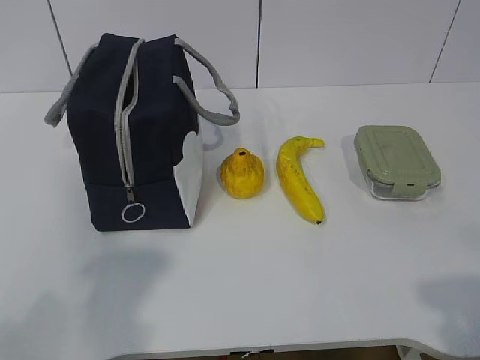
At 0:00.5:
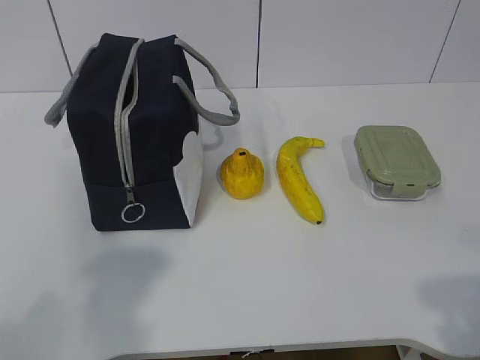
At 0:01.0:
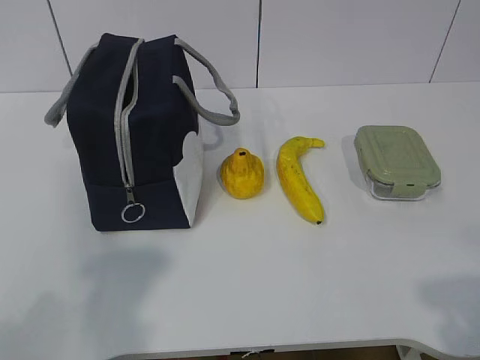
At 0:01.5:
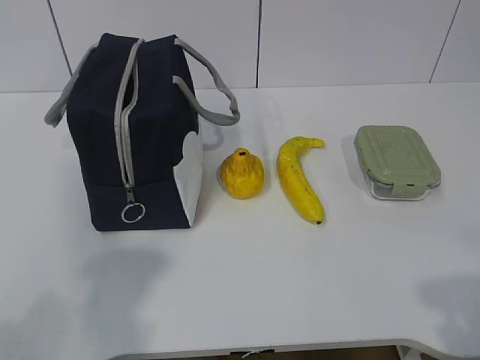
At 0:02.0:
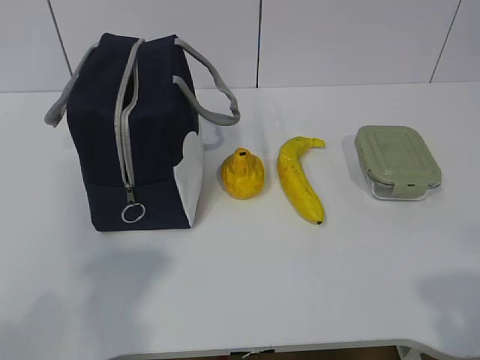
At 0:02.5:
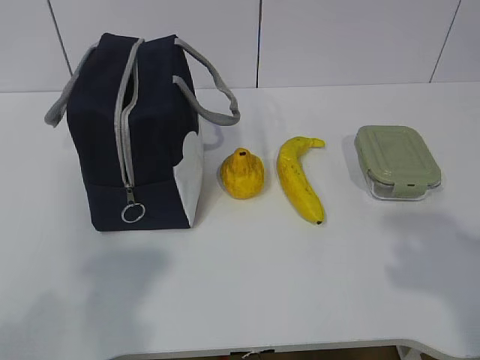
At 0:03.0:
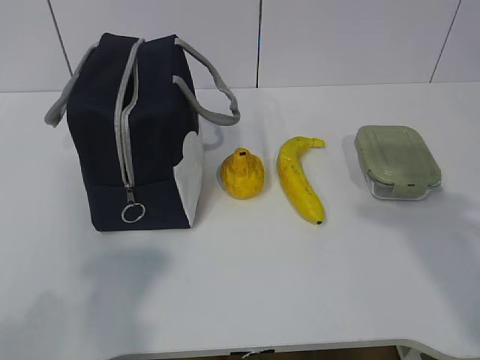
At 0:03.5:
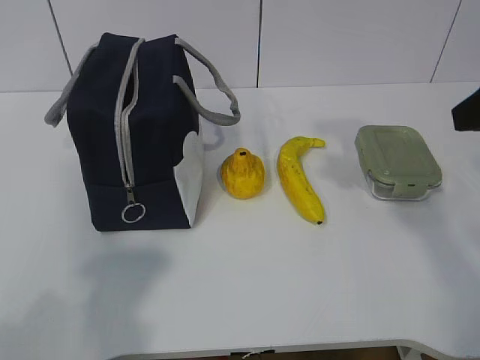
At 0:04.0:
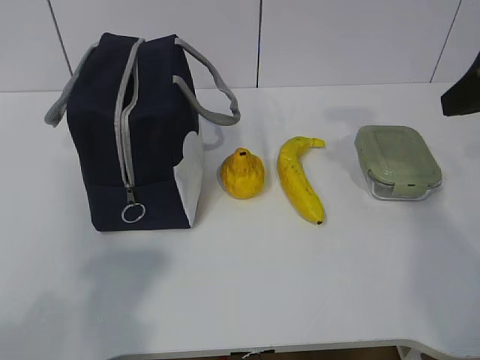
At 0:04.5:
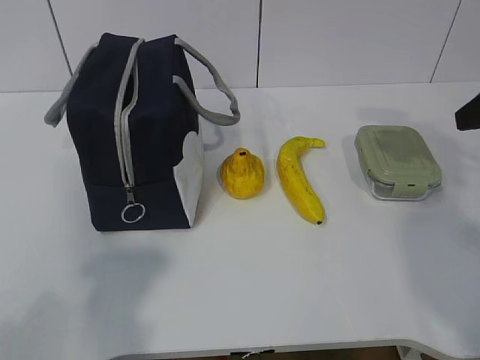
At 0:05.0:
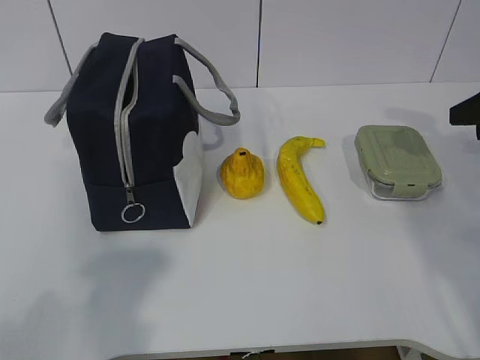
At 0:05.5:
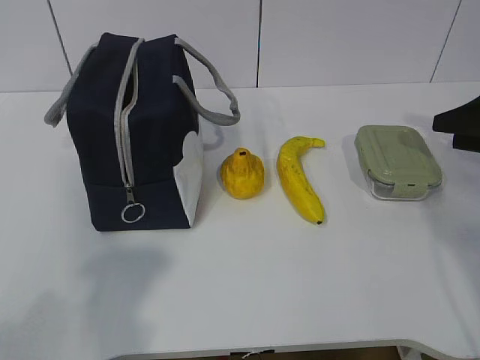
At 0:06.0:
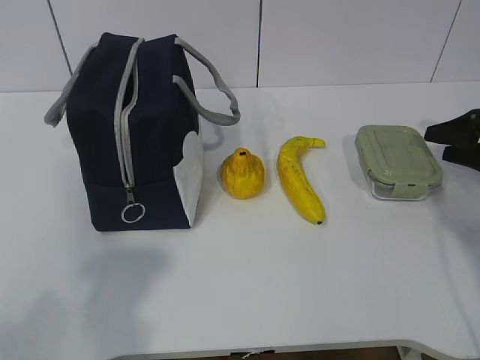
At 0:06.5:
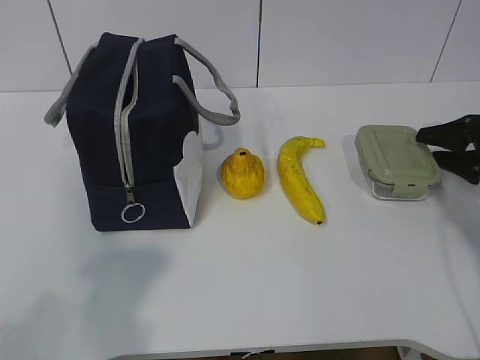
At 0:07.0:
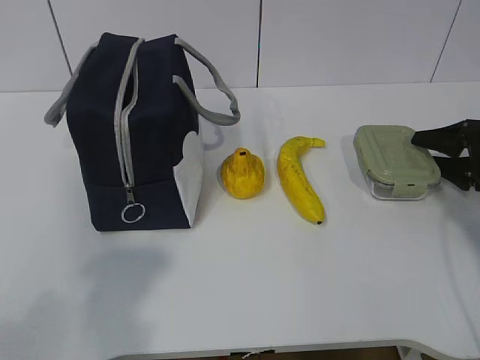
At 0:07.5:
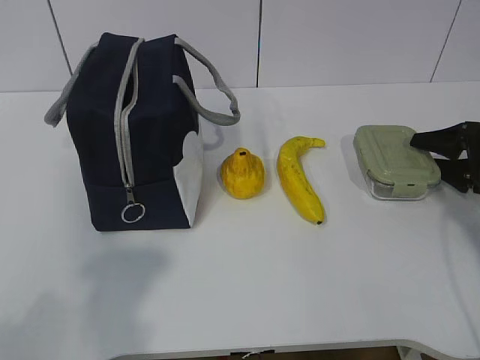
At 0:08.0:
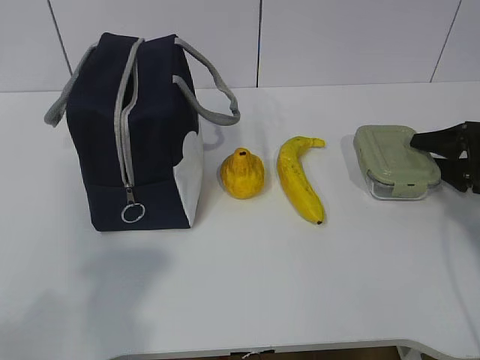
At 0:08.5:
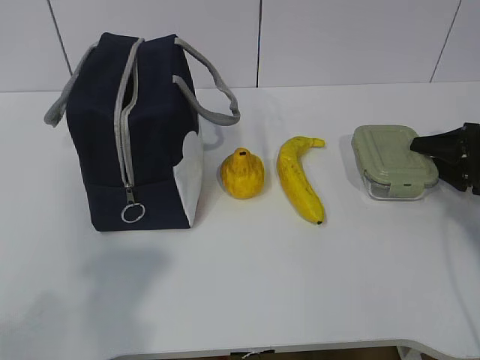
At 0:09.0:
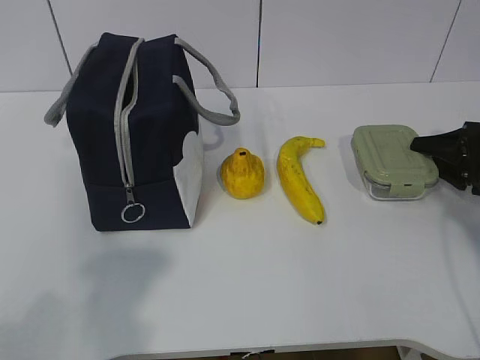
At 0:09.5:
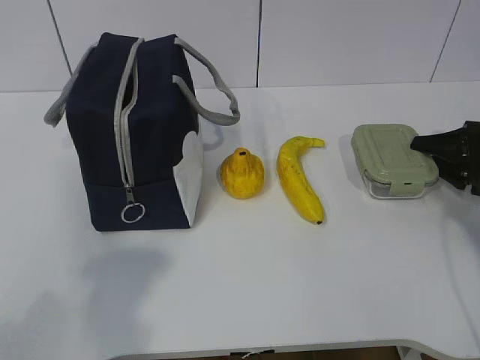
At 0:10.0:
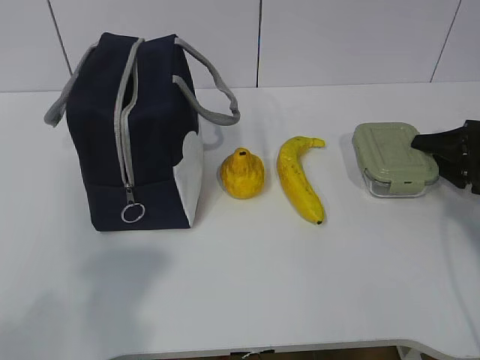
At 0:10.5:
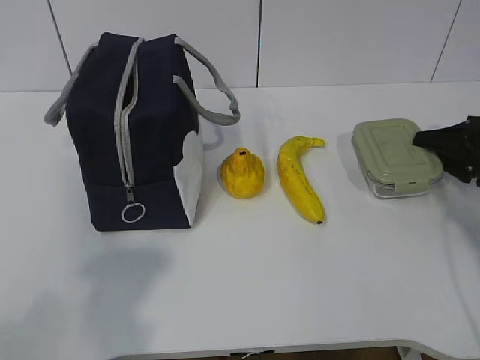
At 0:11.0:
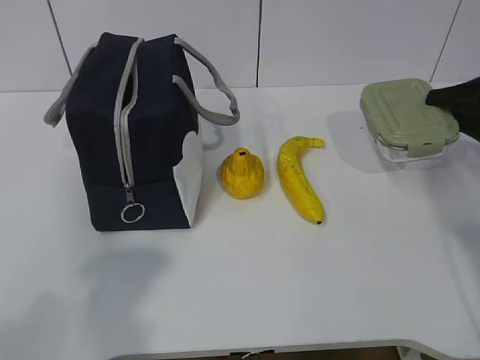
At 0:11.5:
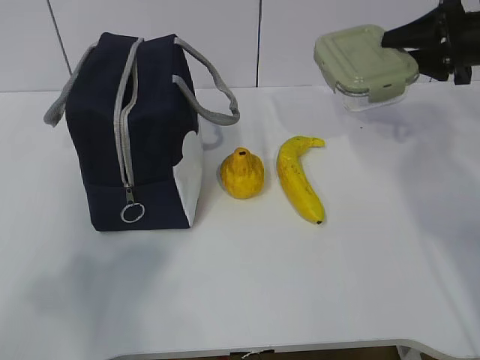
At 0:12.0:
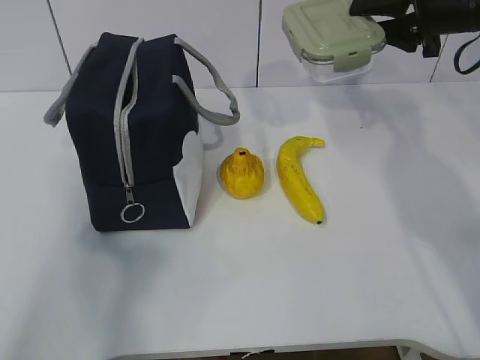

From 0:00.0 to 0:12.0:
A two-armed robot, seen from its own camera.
Step, from 0:00.0 to 0:07.0: Grab the lunch box with your right hand.
From 0:02.0 to 0:04.0: The right gripper travels forward by roughly 30 cm.
From 0:04.0 to 0:06.0: The right gripper travels downward, to the right and forward by roughly 25 cm.
From 0:06.0 to 0:08.0: The grippers stay close to where they were, moving slightly.
From 0:08.0 to 0:10.0: Both grippers stay about where they are.
From 0:10.0 to 0:12.0: The right gripper heads upward and to the left, covering approximately 20 cm. Meanwhile the left gripper goes about 10 cm forward and upward.

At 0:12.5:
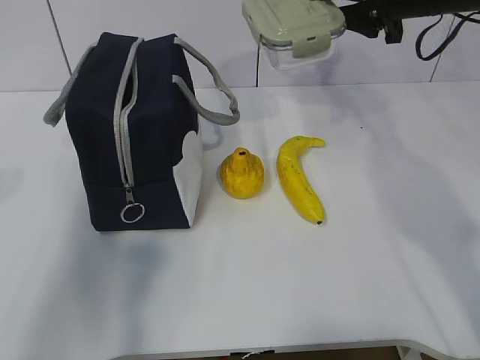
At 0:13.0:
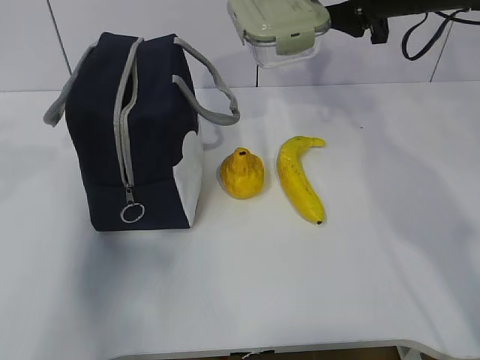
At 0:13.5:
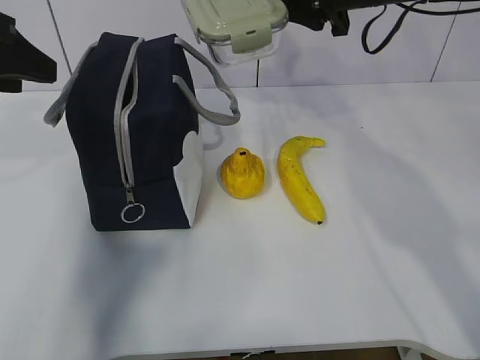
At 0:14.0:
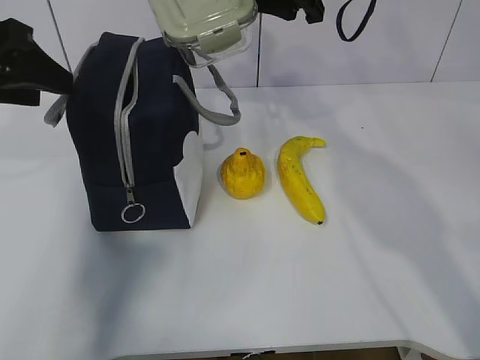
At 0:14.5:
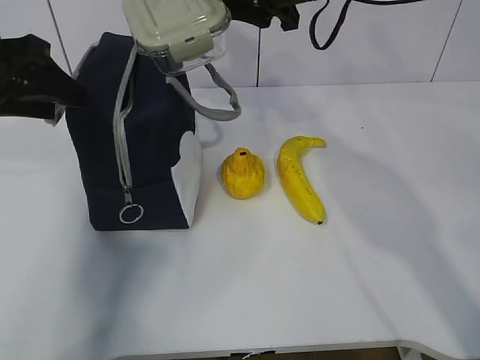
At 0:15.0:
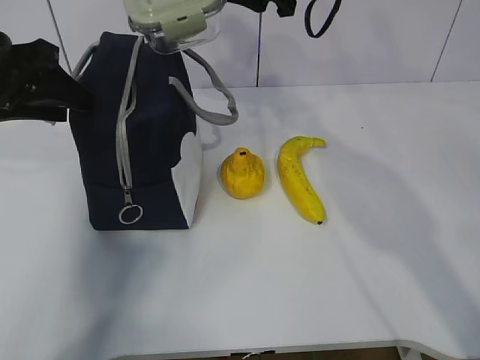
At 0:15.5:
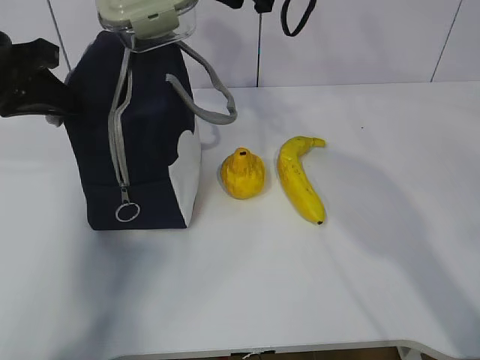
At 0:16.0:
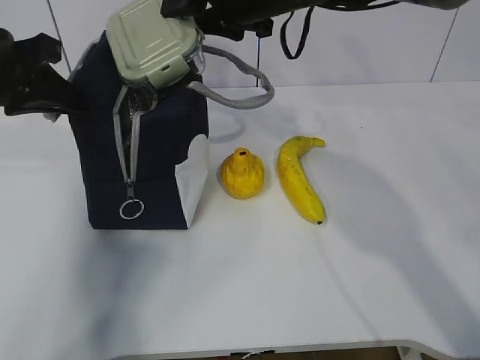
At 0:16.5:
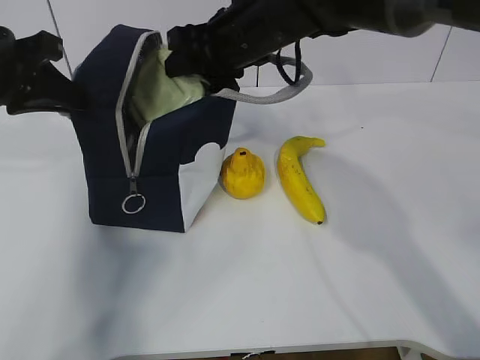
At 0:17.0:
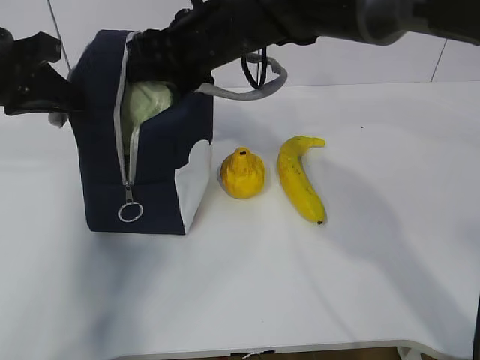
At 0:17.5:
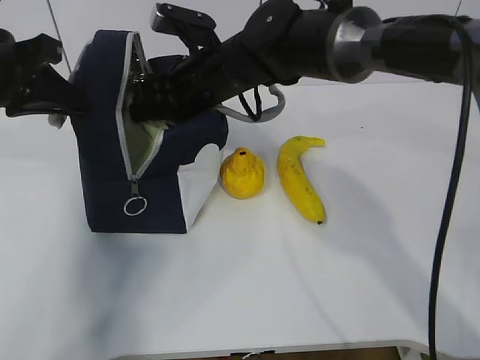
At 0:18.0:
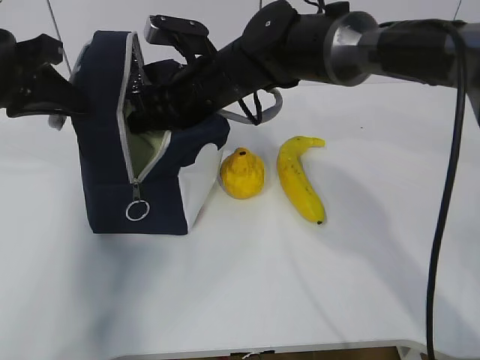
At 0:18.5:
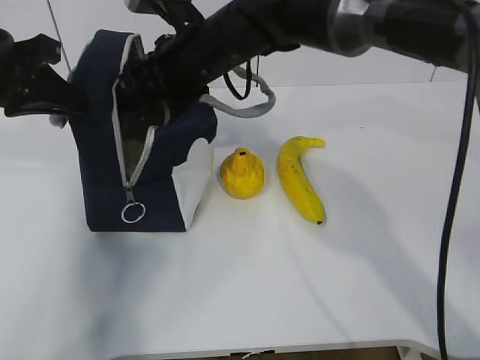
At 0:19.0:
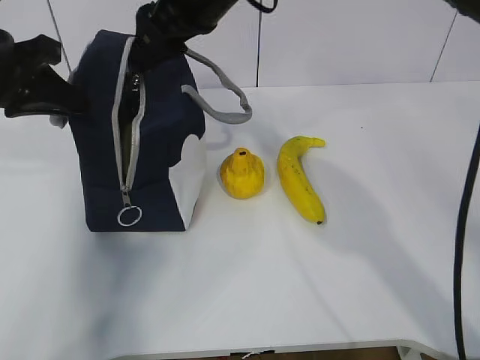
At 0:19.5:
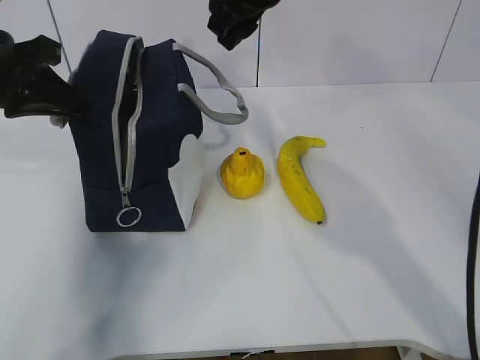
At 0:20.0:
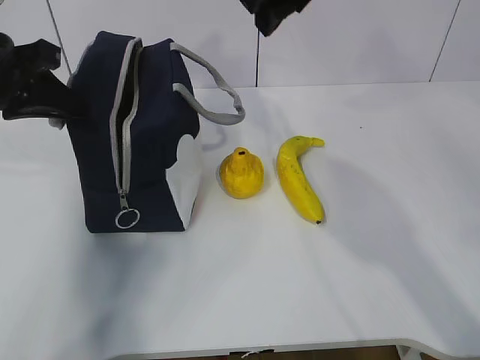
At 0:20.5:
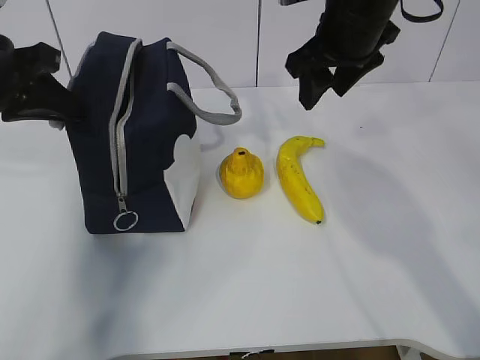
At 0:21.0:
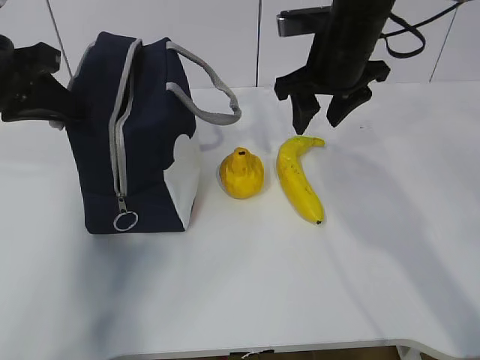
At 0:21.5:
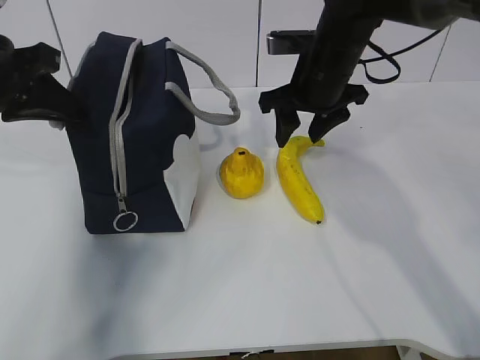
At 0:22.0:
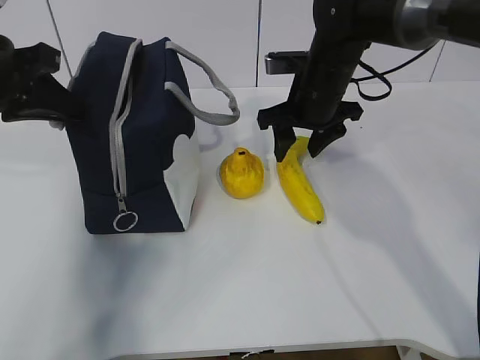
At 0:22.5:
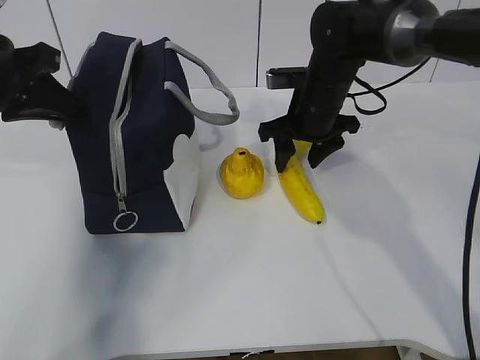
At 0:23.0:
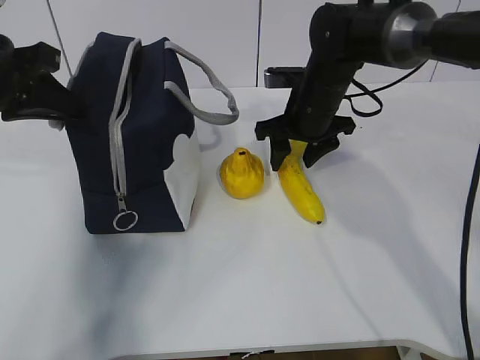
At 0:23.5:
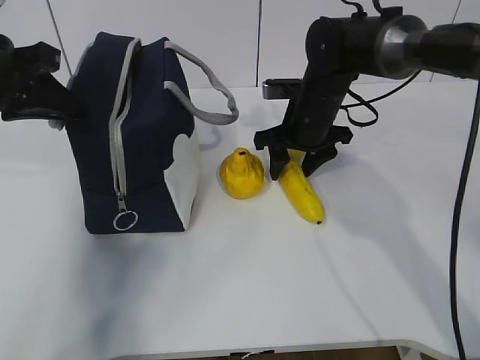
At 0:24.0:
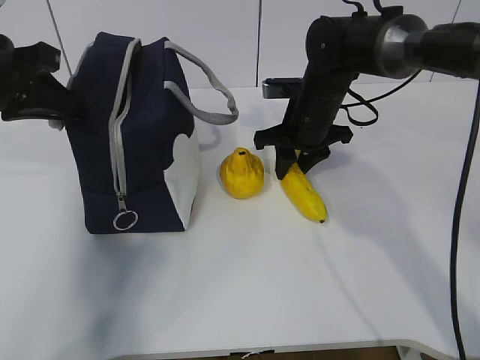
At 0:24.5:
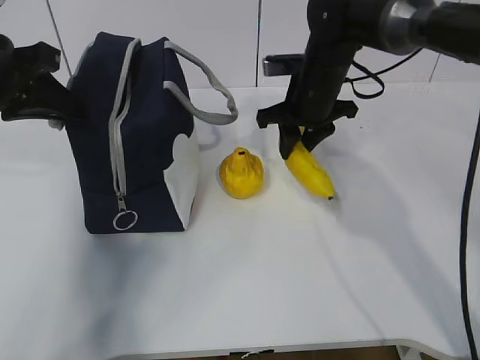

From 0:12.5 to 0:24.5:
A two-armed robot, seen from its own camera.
Step, from 0:13.5 to 0:15.0: Place it into the bag with your right hand.
Step, from 0:15.5 to 0:19.5: Grab the banana with your right hand.
Step, from 0:20.5 to 0:23.5: Place it into the bag with your right hand.
From 0:12.5 to 0:14.5: The right gripper moves to the left, some 15 cm; the left gripper shifts approximately 15 cm forward.
From 0:14.5 to 0:16.5: The left gripper closes; the right gripper heads downward and to the left, covering about 10 cm.
From 0:16.5 to 0:18.5: The right gripper is displaced to the left by roughly 5 cm.
From 0:18.5 to 0:20.5: The right gripper is displaced to the right by about 15 cm.
From 0:20.5 to 0:22.5: The right gripper is displaced downward by approximately 10 cm.
From 0:22.5 to 0:24.5: The right gripper closes up.

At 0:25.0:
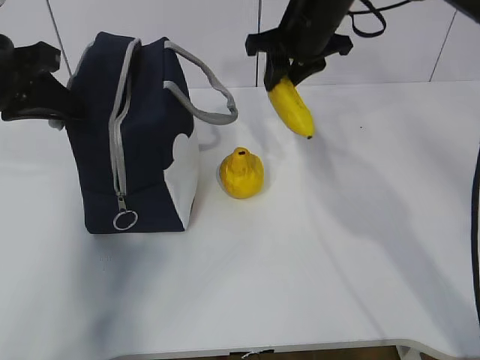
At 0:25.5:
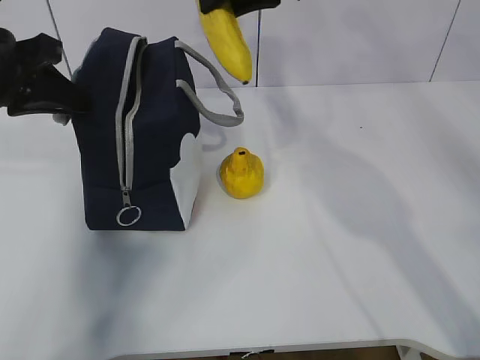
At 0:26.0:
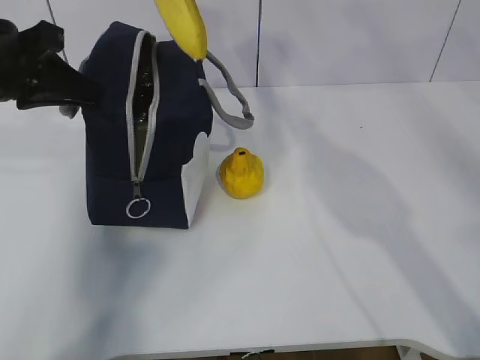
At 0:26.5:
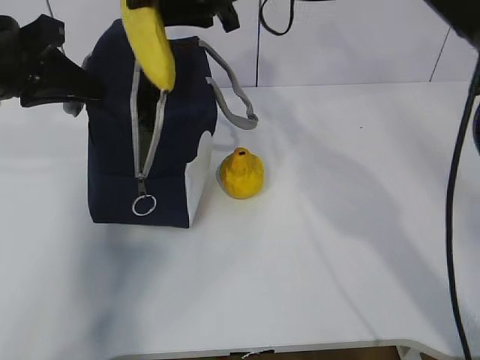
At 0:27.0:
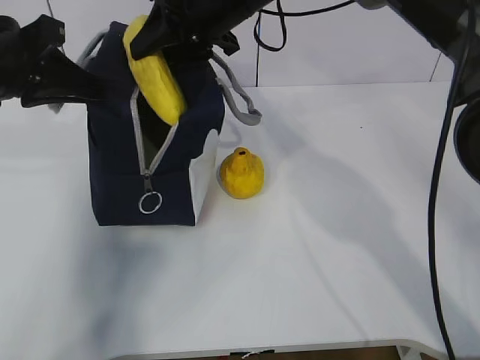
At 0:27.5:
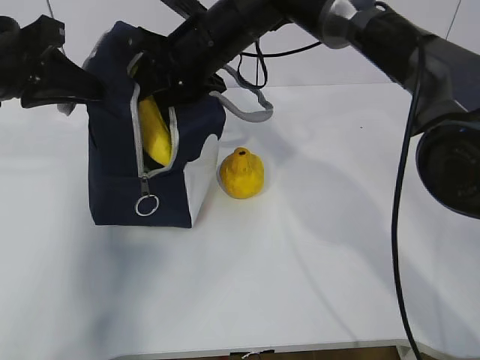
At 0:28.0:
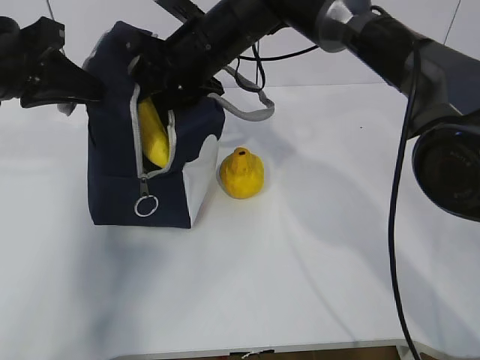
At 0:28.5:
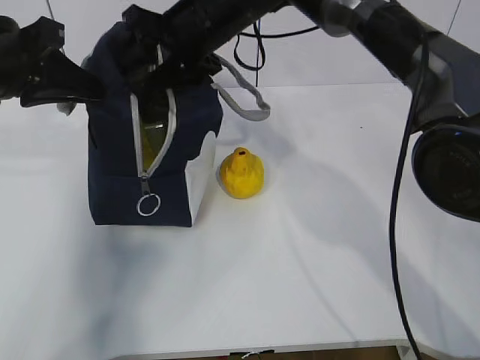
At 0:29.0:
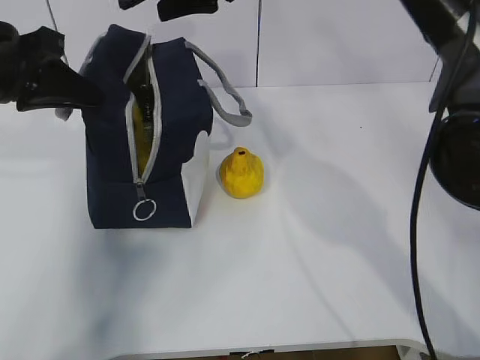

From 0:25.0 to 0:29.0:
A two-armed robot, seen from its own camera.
From 0:25.0 to 0:27.0: The right gripper is displaced to the left by some 10 cm, and goes upward and returns, some 10 cm each way.
From 0:27.0 to 0:29.0: The right gripper opens its fingers.
